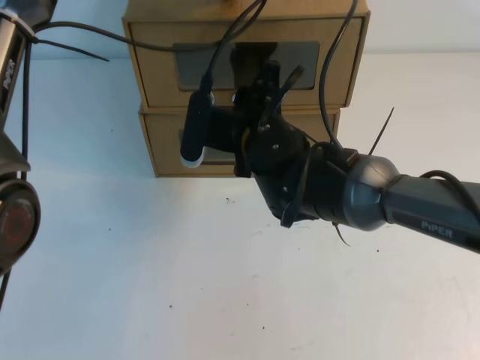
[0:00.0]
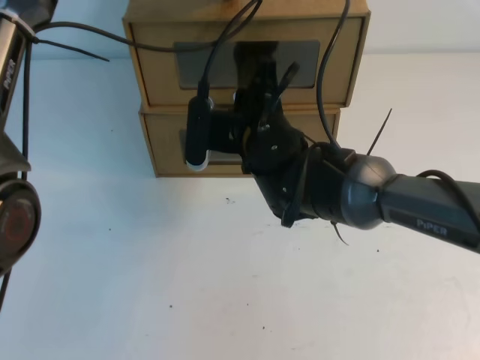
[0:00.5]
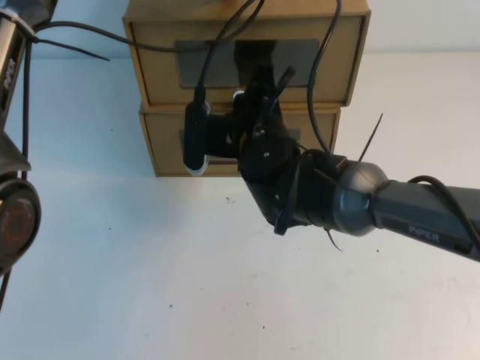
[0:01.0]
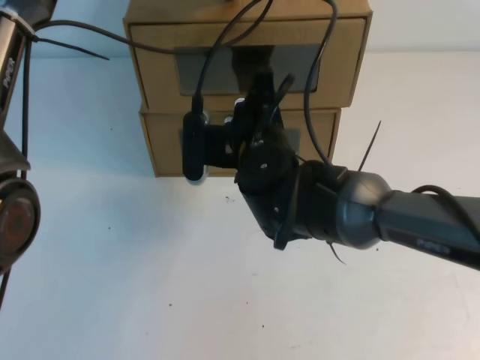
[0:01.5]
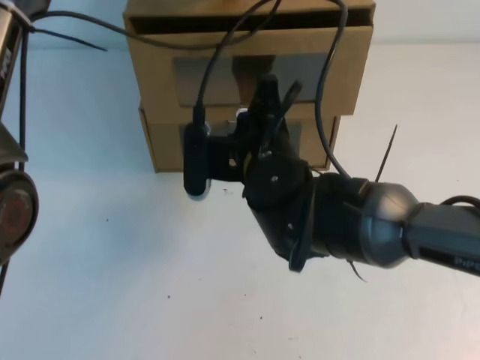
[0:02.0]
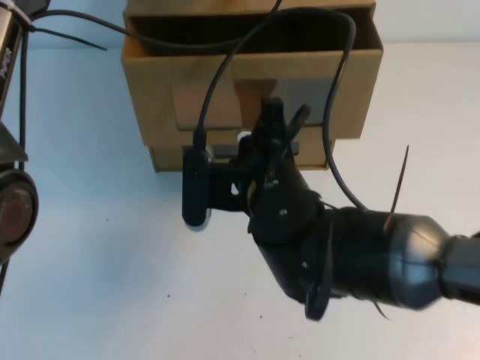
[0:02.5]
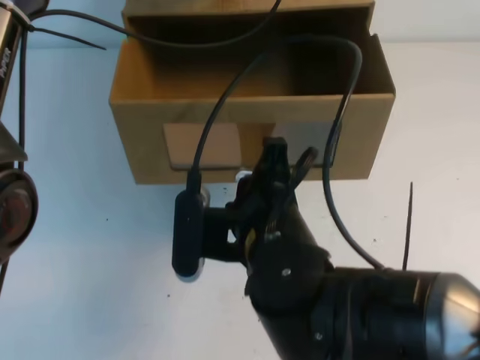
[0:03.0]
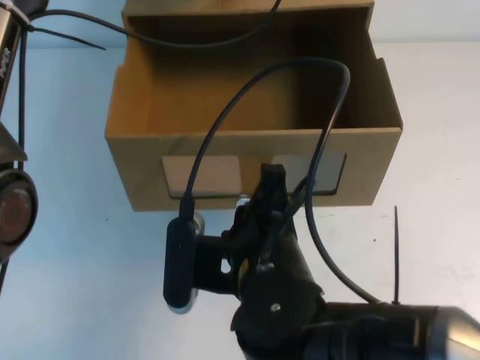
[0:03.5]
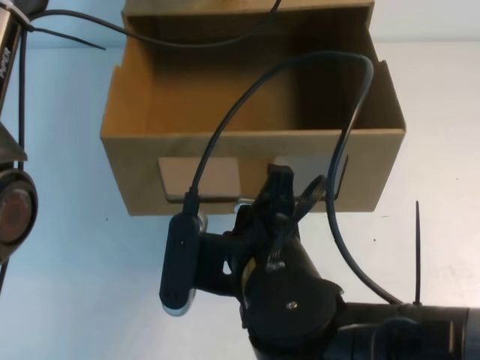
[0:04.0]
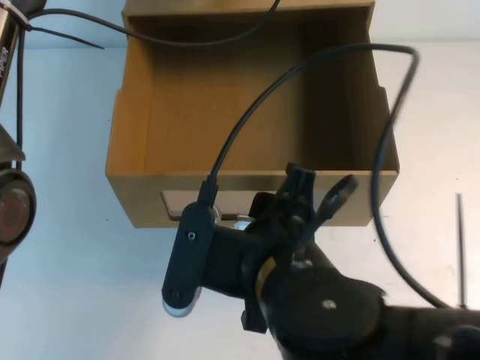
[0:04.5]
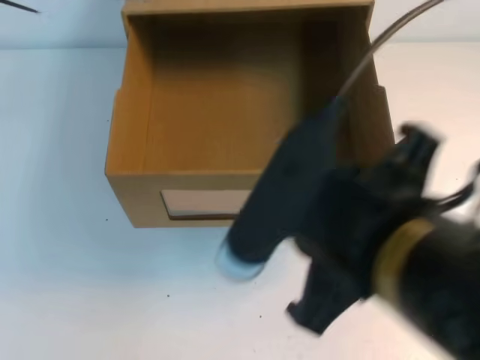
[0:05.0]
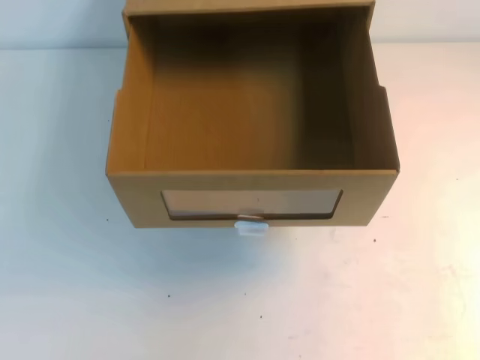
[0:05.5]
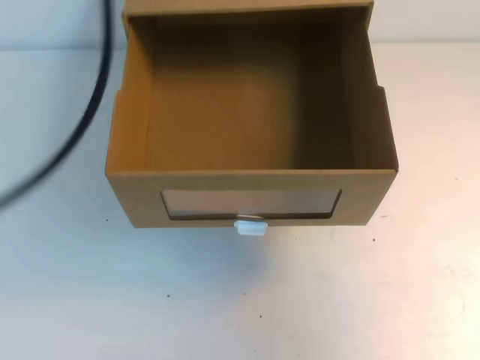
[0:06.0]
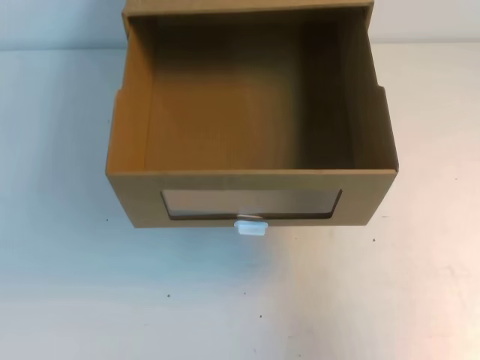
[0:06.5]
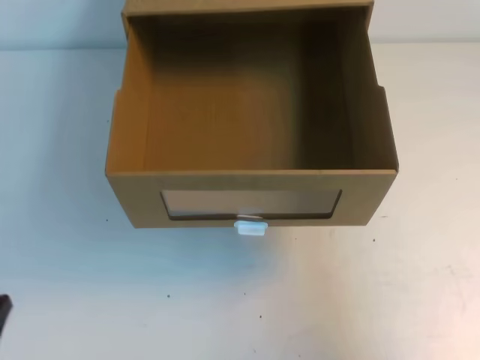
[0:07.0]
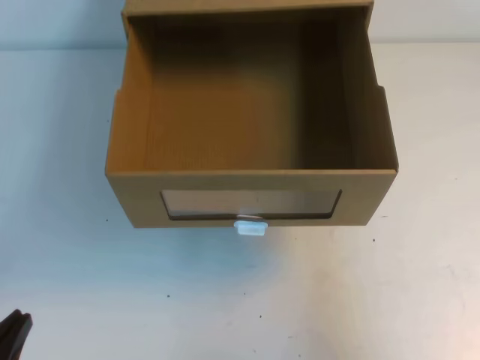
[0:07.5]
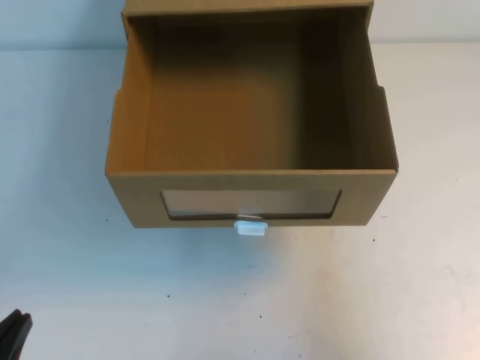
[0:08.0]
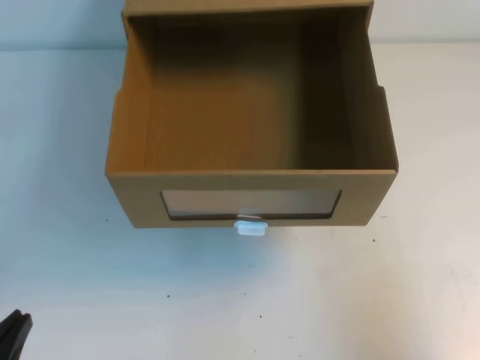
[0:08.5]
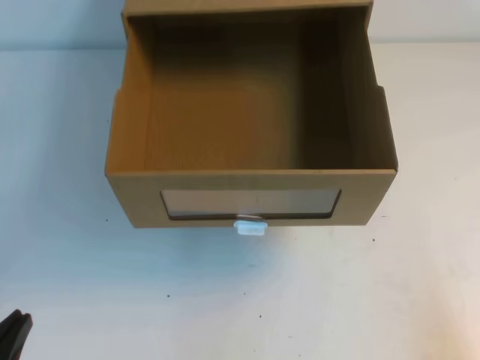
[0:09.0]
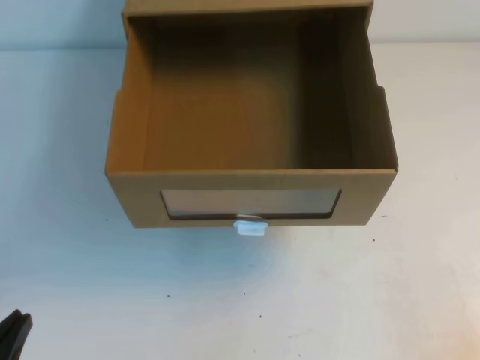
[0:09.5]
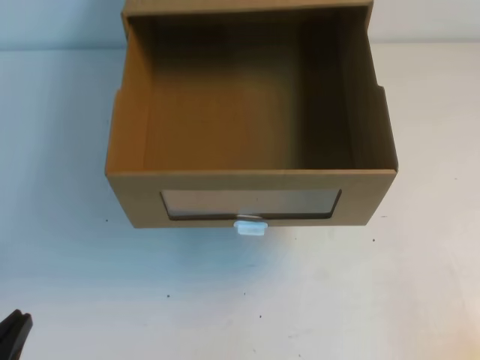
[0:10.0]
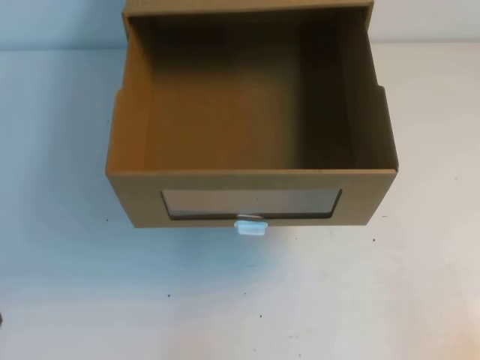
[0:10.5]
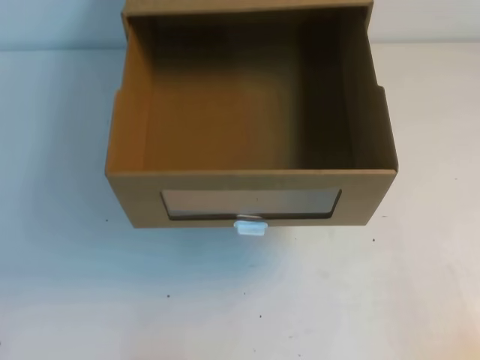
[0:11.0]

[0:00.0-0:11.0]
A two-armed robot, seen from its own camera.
Task of the whole recording: open the shoebox on the table.
Step, 0:00.0 to 0:11.0: Open the shoe box.
0:00.0 to 0:02.0: The right gripper moves roughly 5 cm, and closes its fingers.
0:02.0 to 0:03.5: The right gripper goes about 15 cm backward.
0:03.5 to 0:05.5: The left gripper shifts roughly 20 cm upward and backward. Meanwhile the right gripper heads to the right and upward, covering roughly 25 cm, and opens, then closes once more.
0:05.5 to 0:07.5: The right gripper is displaced downward and to the right by some 15 cm, while the left gripper heads downward and backward, covering about 40 cm.
0:07.5 to 0:09.0: The right gripper moves downward and backward, approximately 15 cm.
